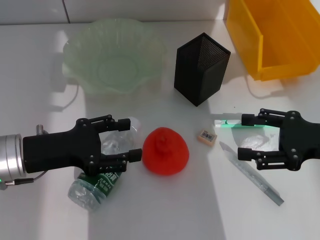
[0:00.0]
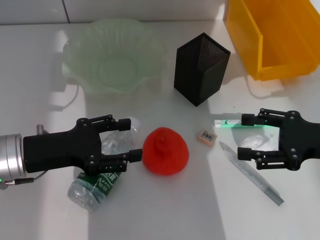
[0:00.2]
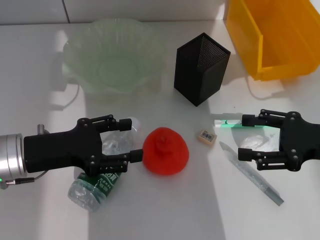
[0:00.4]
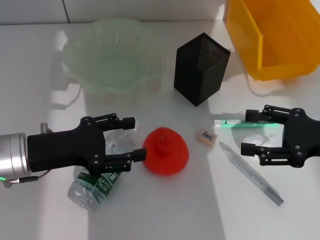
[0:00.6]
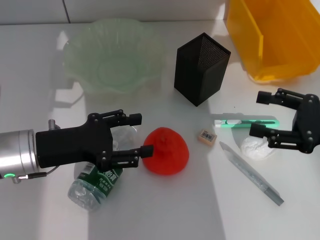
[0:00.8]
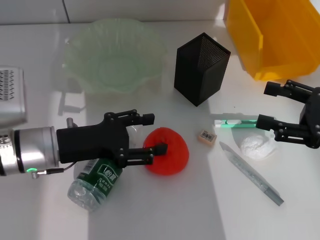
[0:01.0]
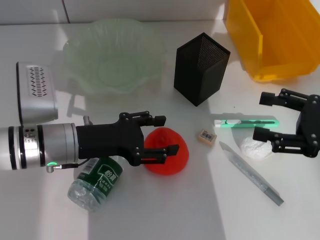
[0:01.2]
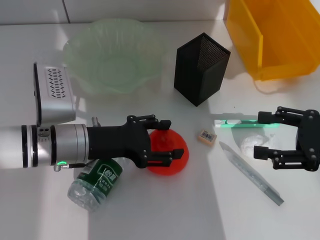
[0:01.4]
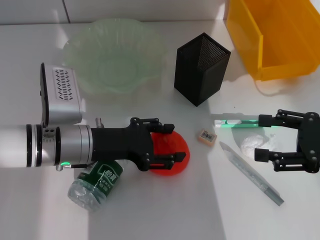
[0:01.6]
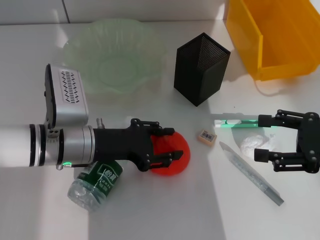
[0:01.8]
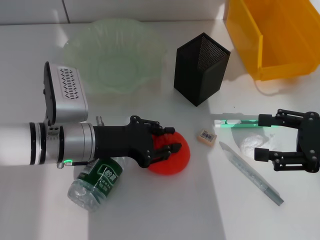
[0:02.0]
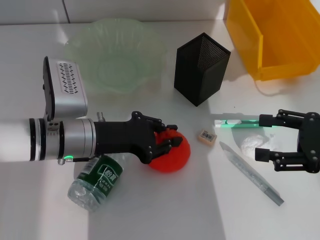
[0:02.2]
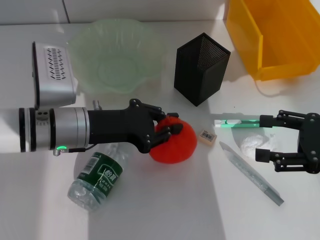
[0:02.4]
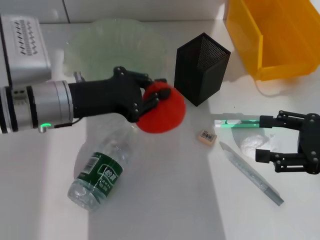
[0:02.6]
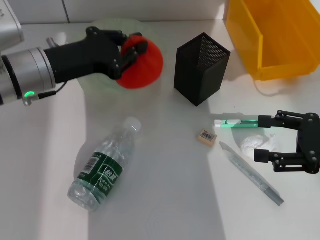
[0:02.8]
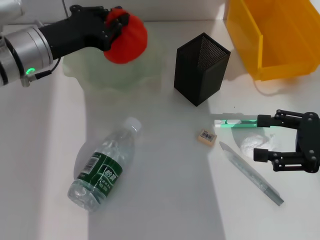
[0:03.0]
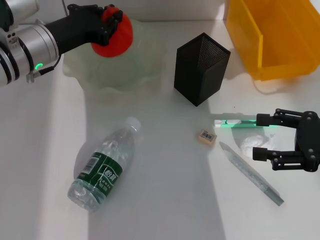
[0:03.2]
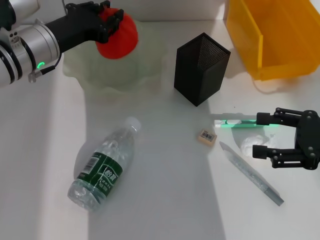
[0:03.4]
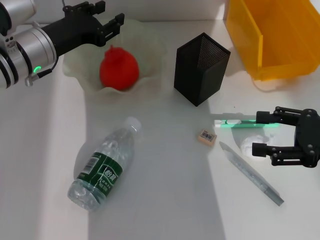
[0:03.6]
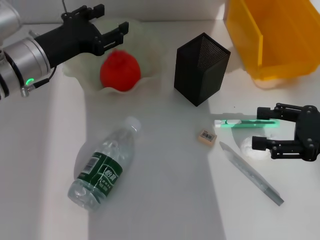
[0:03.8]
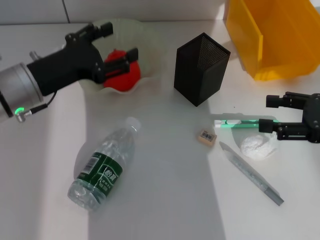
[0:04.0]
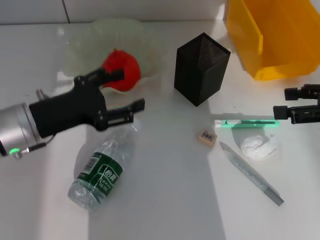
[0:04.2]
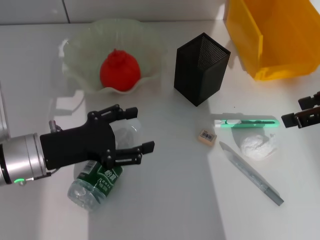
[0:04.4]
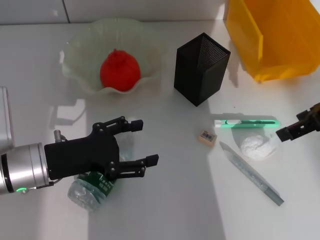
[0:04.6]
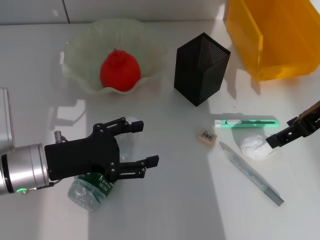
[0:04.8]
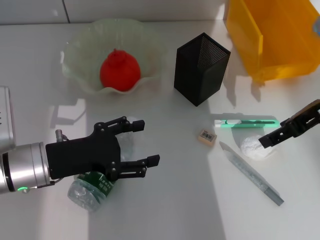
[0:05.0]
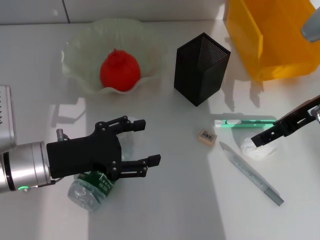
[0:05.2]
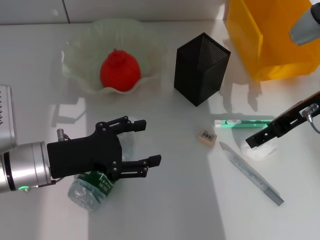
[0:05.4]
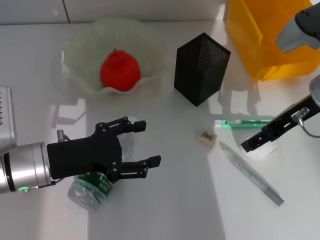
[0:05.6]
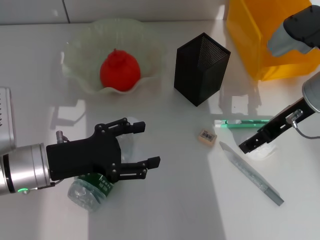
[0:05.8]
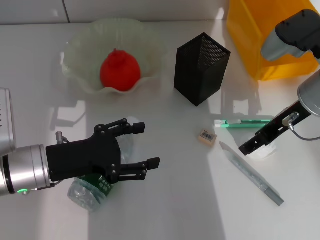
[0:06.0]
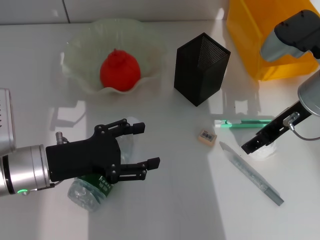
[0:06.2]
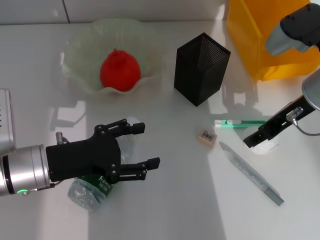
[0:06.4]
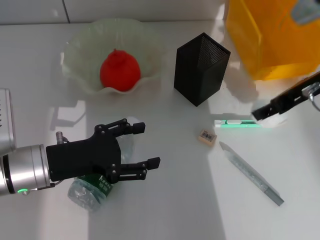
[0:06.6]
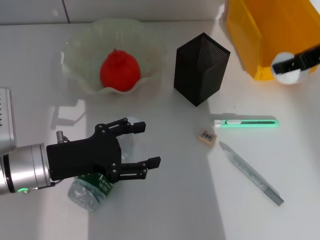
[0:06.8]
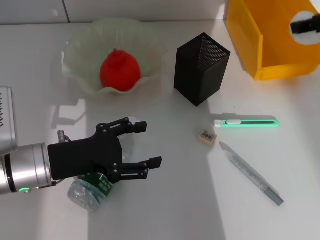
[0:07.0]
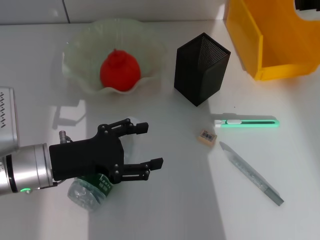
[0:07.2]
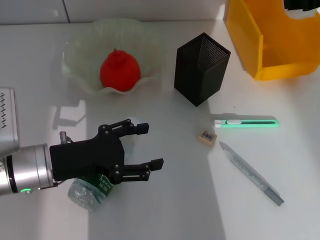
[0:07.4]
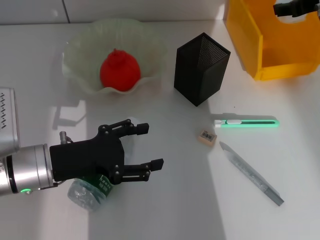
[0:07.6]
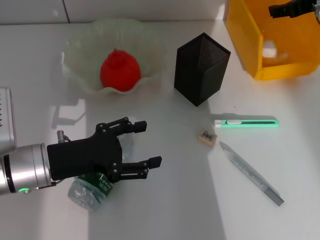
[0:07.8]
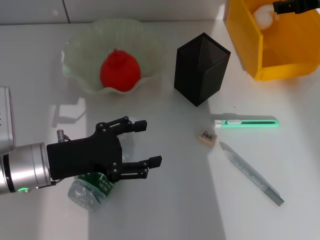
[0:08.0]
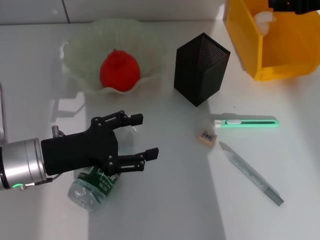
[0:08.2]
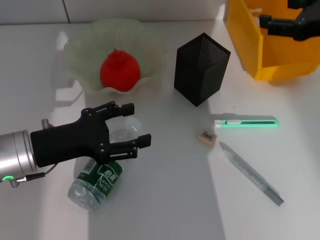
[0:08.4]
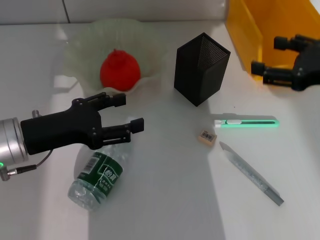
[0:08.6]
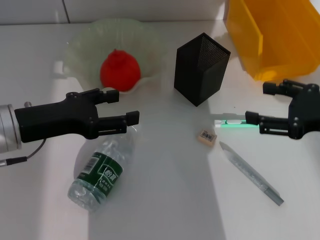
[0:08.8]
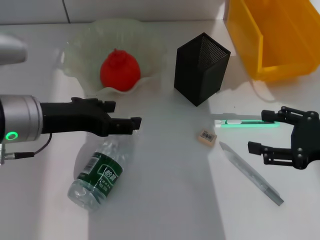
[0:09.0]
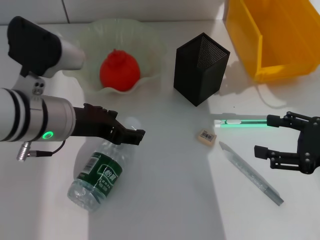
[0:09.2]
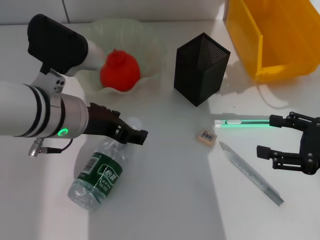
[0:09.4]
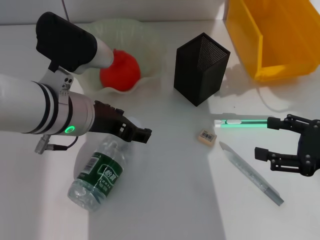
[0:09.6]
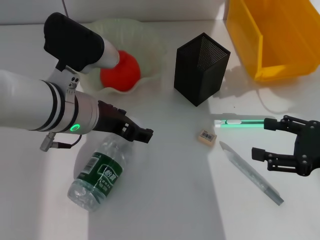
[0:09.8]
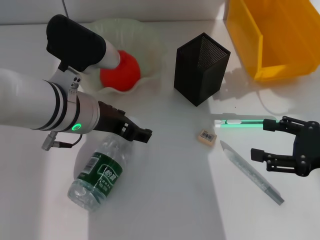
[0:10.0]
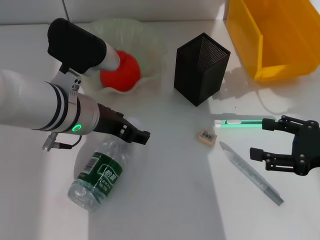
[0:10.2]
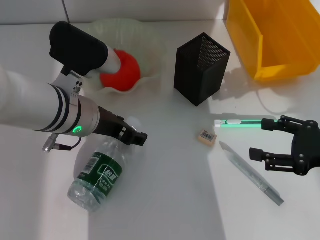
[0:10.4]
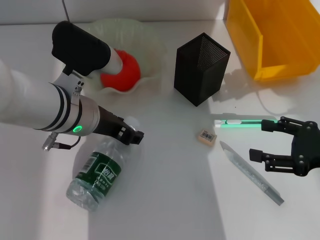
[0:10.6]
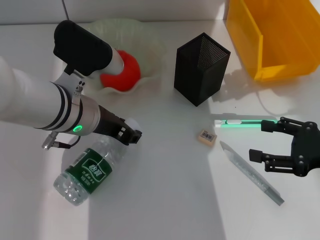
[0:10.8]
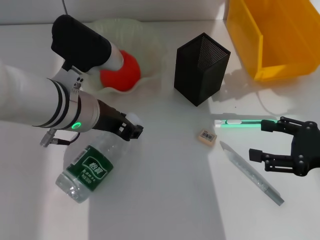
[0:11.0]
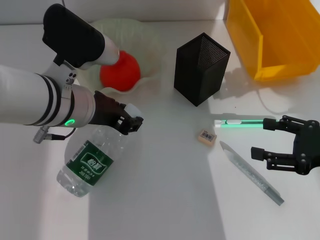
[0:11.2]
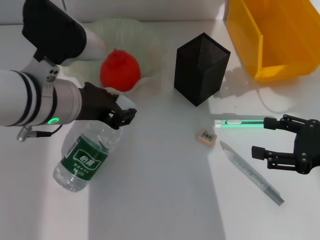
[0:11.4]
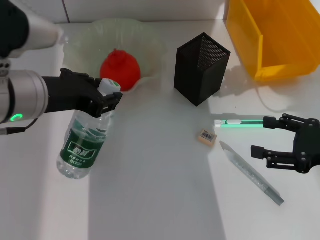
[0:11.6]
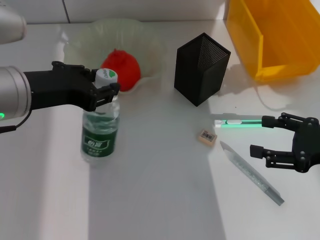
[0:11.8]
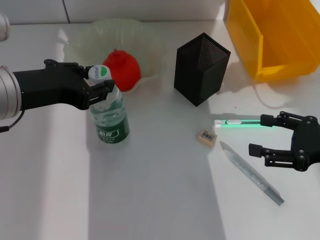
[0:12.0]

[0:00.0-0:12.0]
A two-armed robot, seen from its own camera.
Step, 0:00.0 to 0:02.0: Grab the orange with the left hand.
Step, 0:02.2 to 0:03.4: Place the orange into the fruit bowl with the left hand.
Step, 0:03.6 to 0:06.0: Grab the paper ball with the right hand.
Step, 0:06.2 to 0:08.2: Place the paper ball into the trash can with the right hand.
Step, 0:08.6 to 0:10.4: Grab the water bottle with the left hand.
0:00.0 to 0:01.6: The left gripper heads to the right, covering roughly 5 cm.
0:01.6 to 0:03.0: The left gripper travels upward and forward by roughly 10 cm, and closes up.
0:03.0 to 0:04.4: The right gripper is displaced upward and forward by approximately 10 cm, while the left gripper moves backward and downward, roughly 10 cm, and opens its fingers.
0:04.4 to 0:06.0: The right gripper heads to the left and downward, covering some 10 cm.
0:06.0 to 0:07.6: The right gripper travels forward, upward and to the right by approximately 10 cm.
0:07.6 to 0:09.0: The right gripper is displaced backward and downward by about 20 cm. Meanwhile the left gripper goes approximately 10 cm upward.
0:09.0 to 0:10.4: The left gripper shifts roughly 5 cm to the right.
0:10.4 to 0:12.0: The left gripper moves to the left and upward, about 10 cm, and closes.

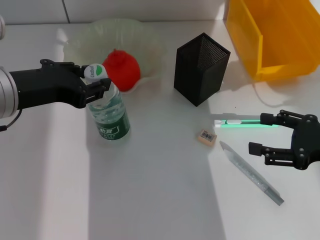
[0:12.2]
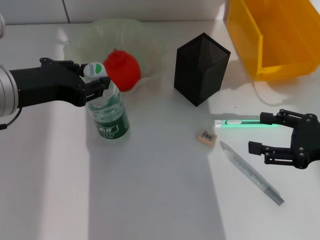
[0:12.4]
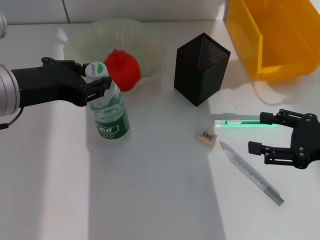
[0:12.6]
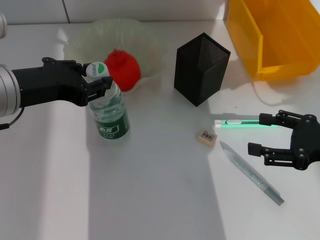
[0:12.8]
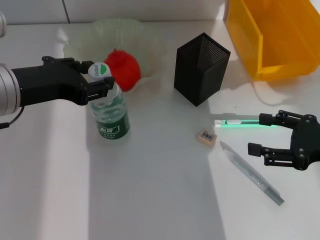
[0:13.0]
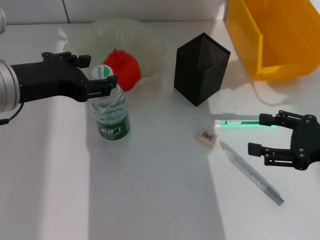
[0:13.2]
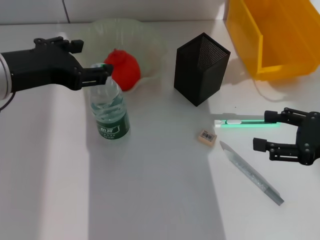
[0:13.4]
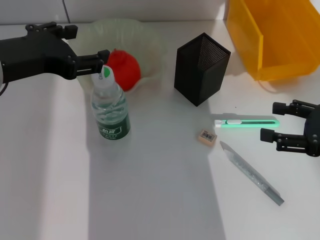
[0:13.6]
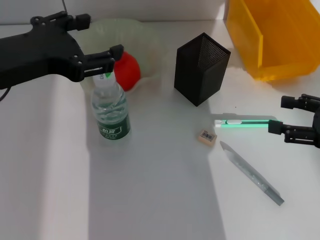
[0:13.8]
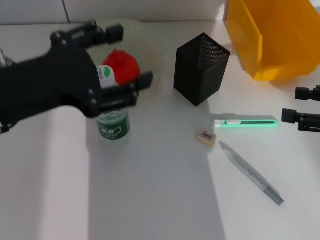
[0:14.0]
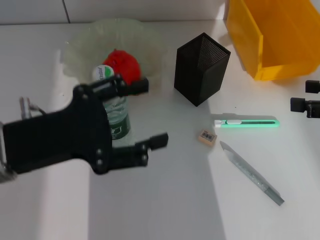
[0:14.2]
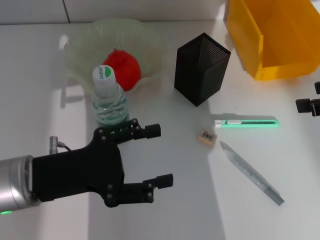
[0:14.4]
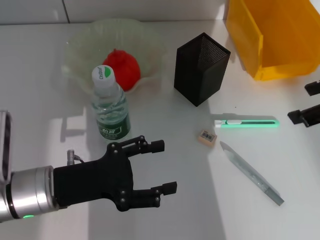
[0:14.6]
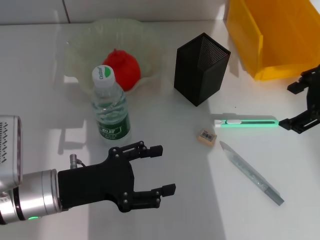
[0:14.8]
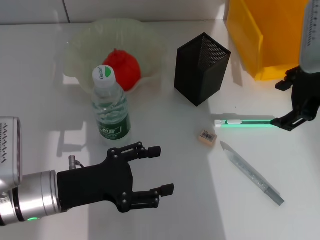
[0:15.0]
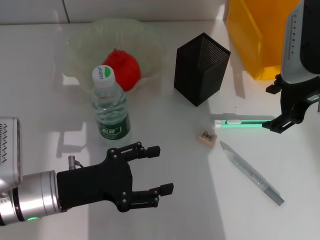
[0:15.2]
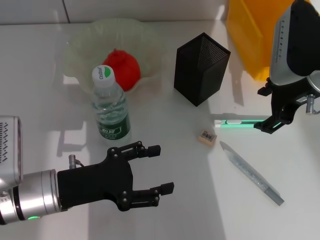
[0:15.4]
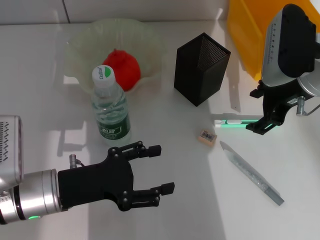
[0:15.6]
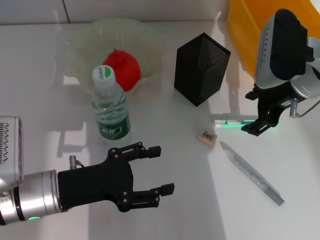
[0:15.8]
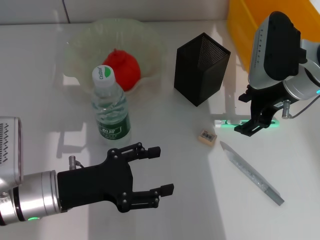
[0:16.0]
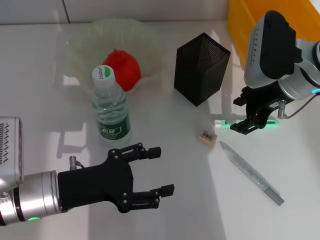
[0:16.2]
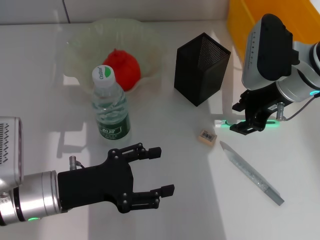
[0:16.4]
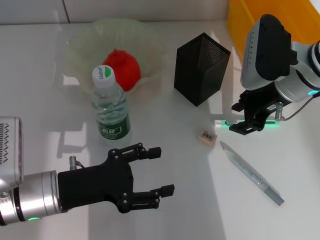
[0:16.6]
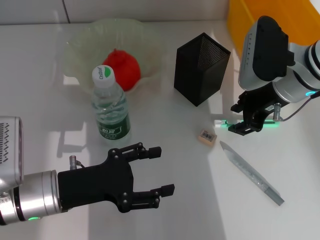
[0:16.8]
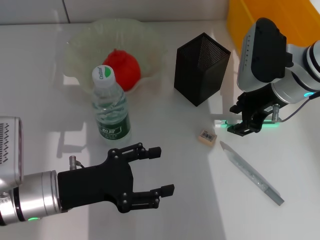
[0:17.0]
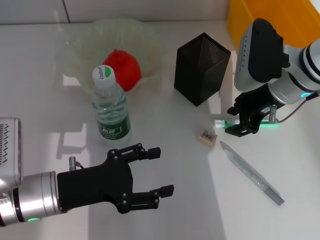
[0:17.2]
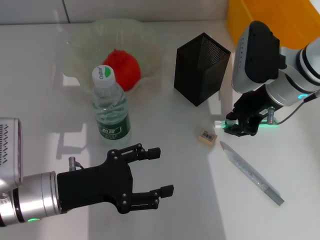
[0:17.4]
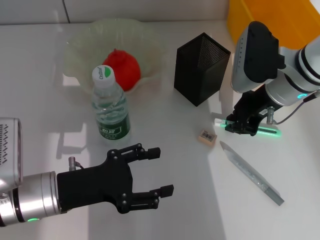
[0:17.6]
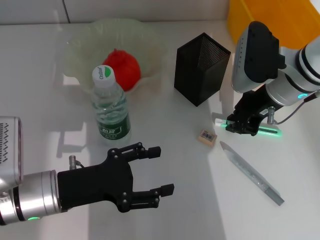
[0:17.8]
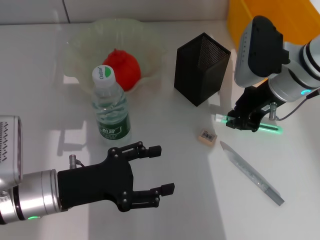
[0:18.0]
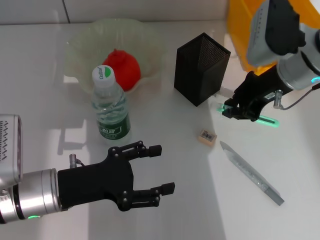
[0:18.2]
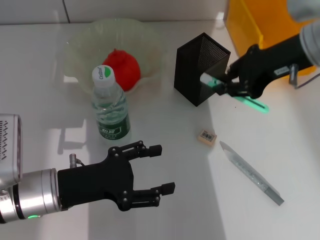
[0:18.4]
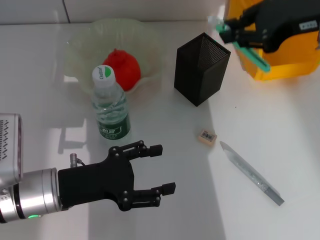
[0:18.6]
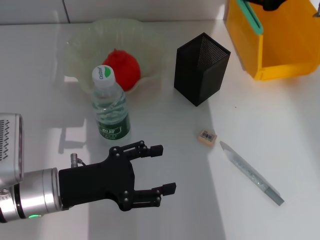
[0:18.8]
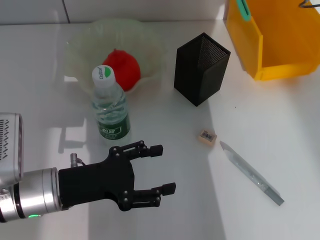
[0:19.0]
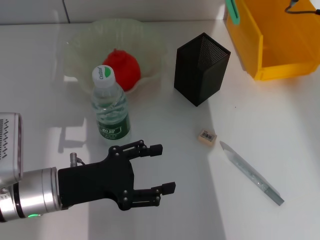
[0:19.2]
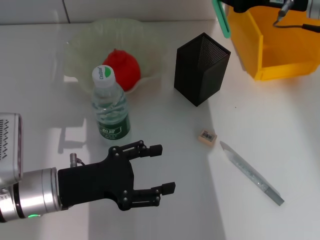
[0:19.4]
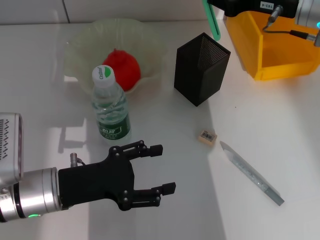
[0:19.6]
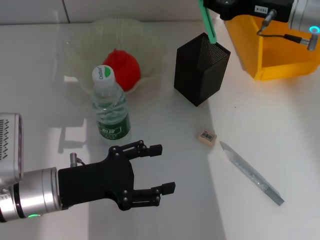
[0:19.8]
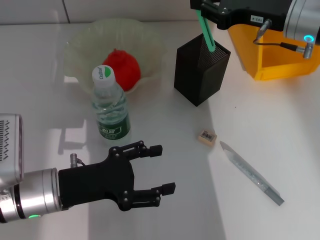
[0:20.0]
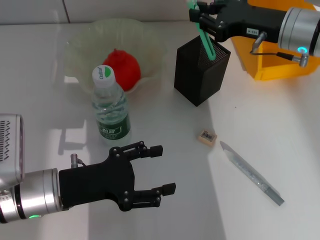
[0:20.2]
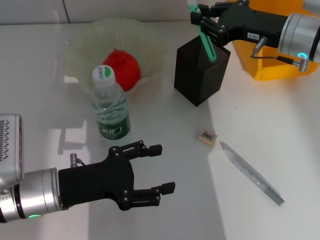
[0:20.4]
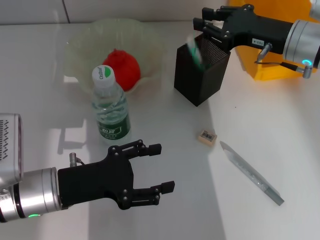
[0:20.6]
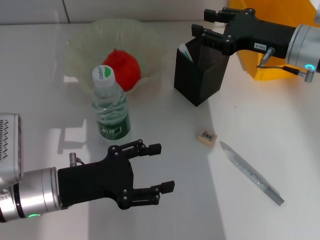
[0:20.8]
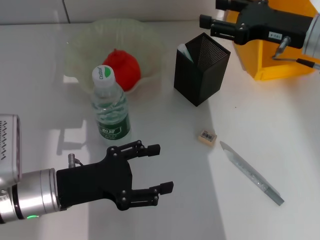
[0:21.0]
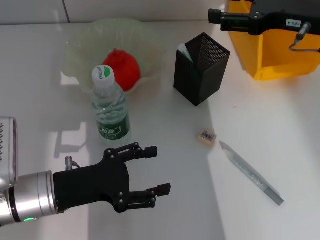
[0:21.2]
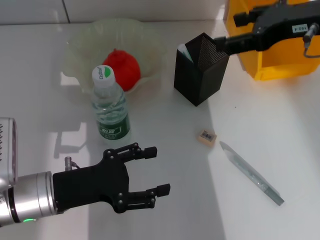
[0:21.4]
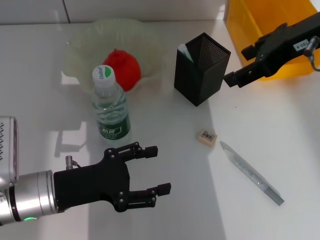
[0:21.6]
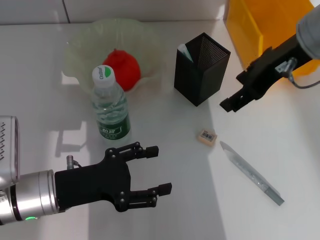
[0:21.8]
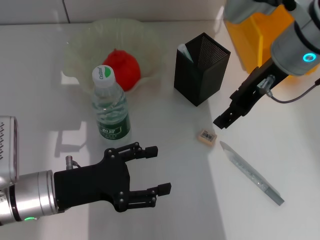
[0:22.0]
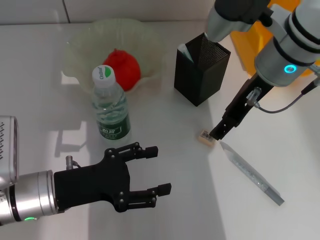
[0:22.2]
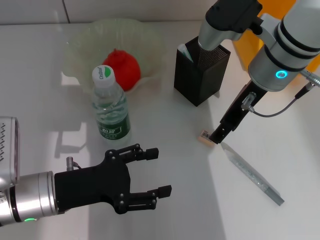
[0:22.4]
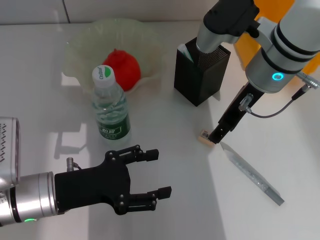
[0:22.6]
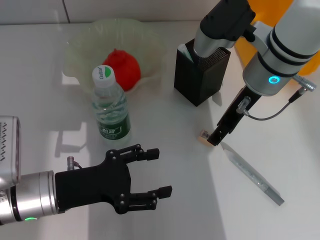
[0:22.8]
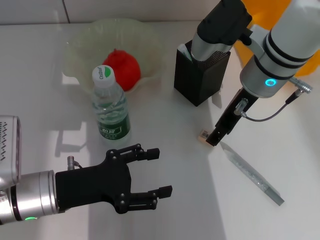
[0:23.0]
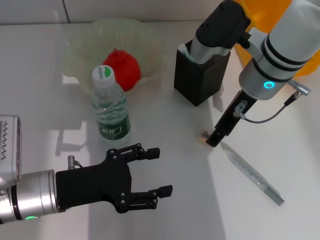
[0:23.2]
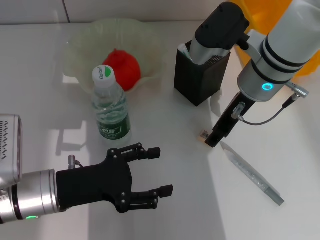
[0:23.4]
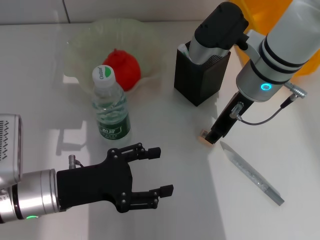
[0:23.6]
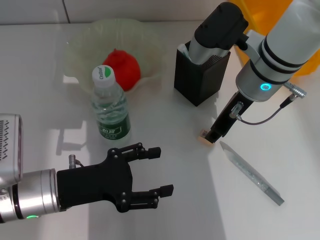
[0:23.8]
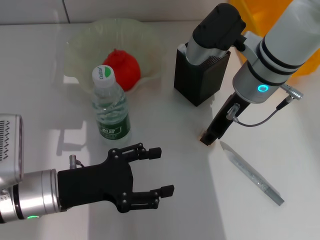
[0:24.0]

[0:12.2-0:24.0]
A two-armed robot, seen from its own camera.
Step, 0:13.4 to 0:17.4: Grab the blue utility knife with the right hand.
Step, 0:17.6 to 0:20.4: Place the blue utility knife into the pen holder with the right hand.
0:12.2 to 0:13.6: The left gripper opens.
0:13.6 to 0:15.2: The right gripper shifts some 15 cm to the left, forward and upward; the left gripper goes some 15 cm downward.
0:15.2 to 0:16.6: The right gripper goes approximately 5 cm downward, and closes its fingers.
0:16.6 to 0:18.2: The right gripper closes its fingers.
0:18.2 to 0:19.6: The right gripper moves roughly 10 cm upward and comes back.
0:19.6 to 0:21.0: The right gripper opens.
0:21.0 to 0:22.6: The right gripper heads to the left, covering roughly 10 cm.
0:22.6 to 0:24.0: The right gripper closes its fingers.
